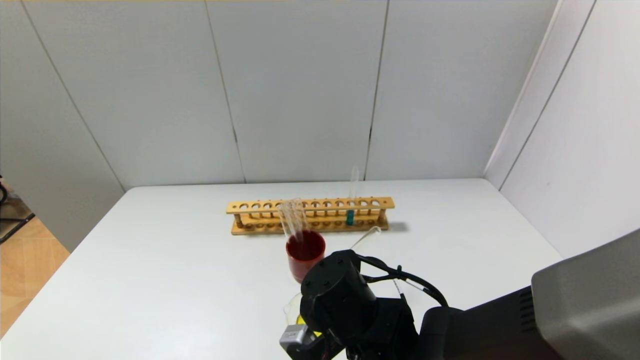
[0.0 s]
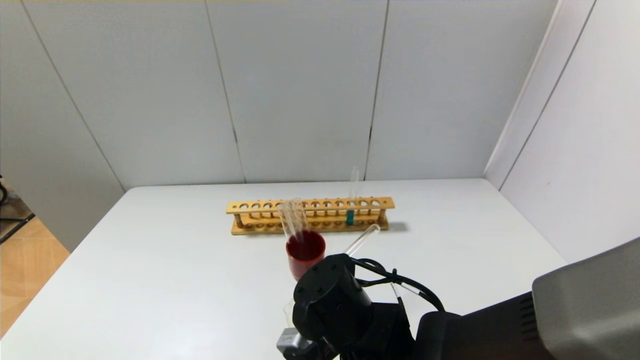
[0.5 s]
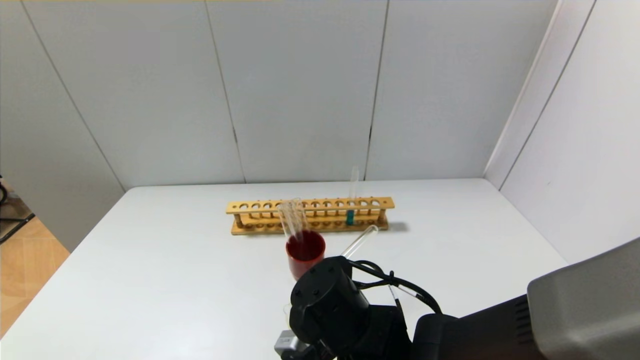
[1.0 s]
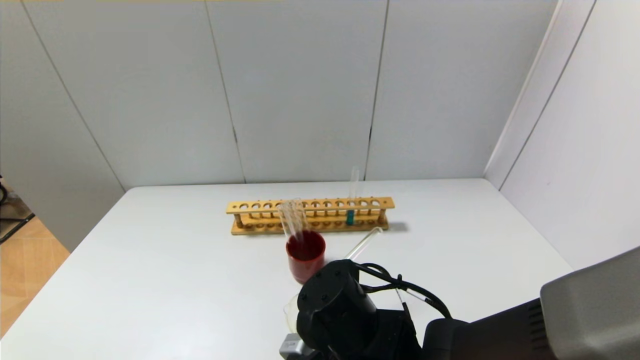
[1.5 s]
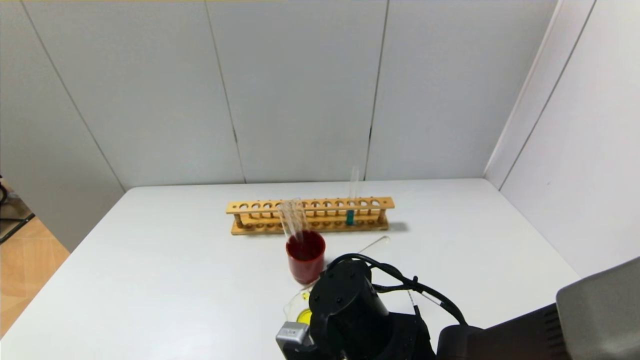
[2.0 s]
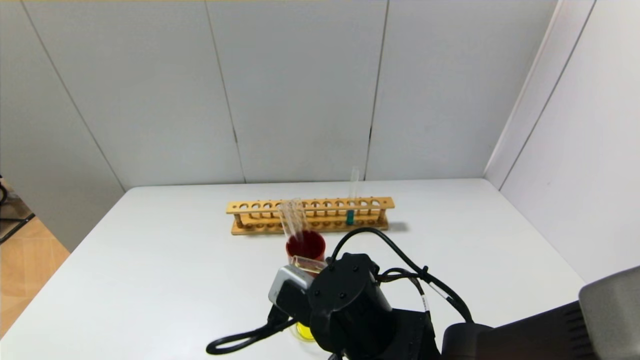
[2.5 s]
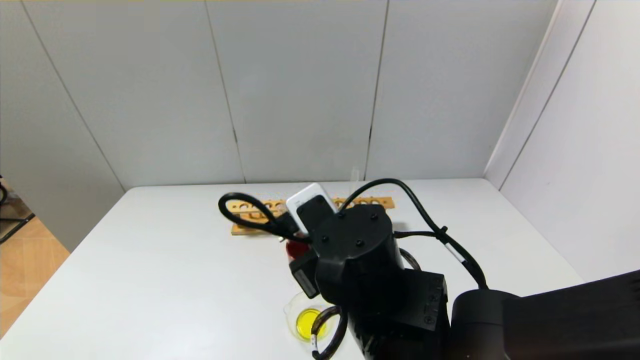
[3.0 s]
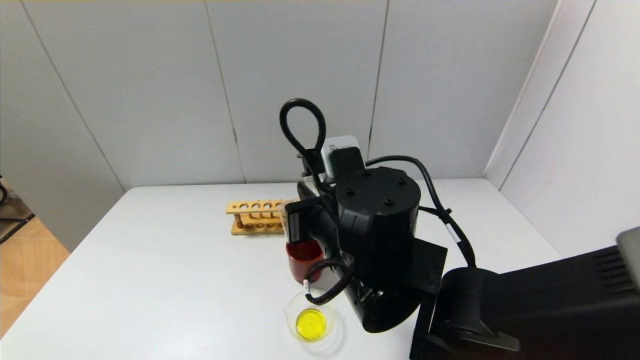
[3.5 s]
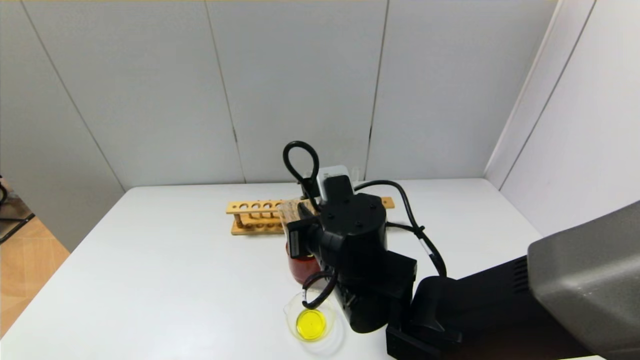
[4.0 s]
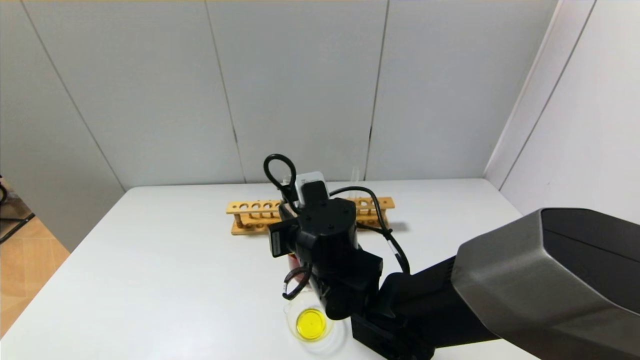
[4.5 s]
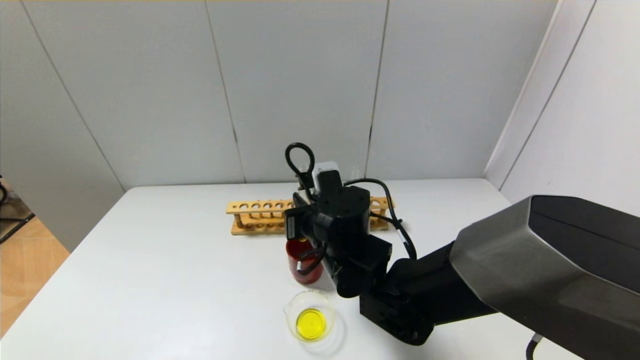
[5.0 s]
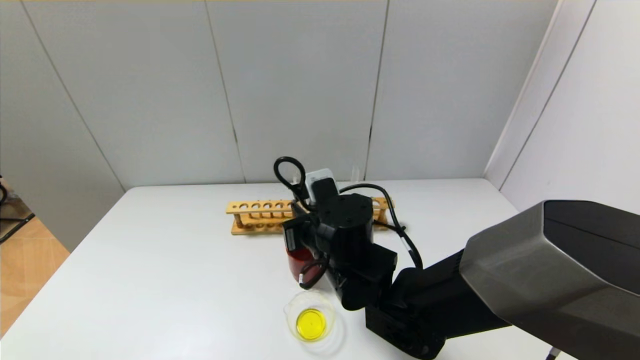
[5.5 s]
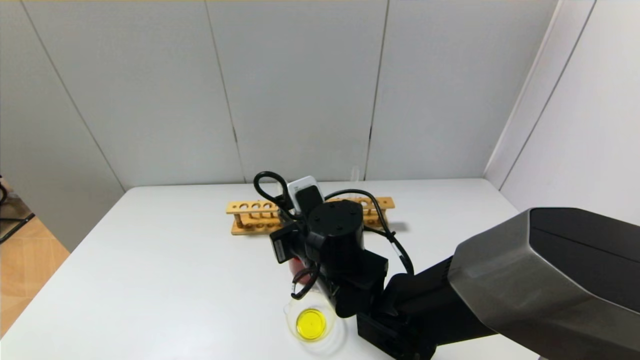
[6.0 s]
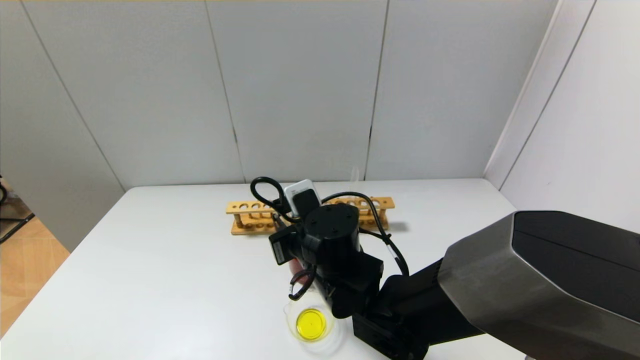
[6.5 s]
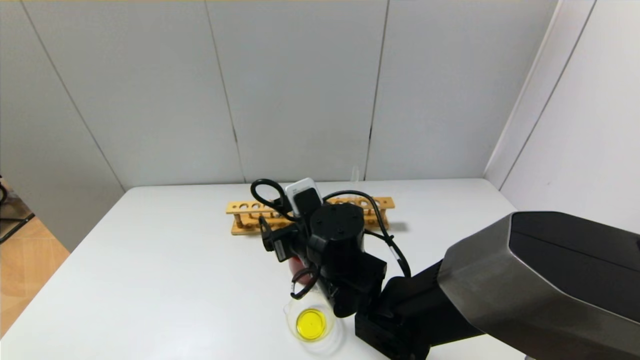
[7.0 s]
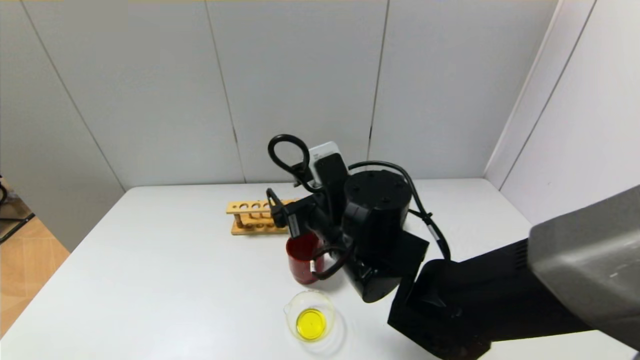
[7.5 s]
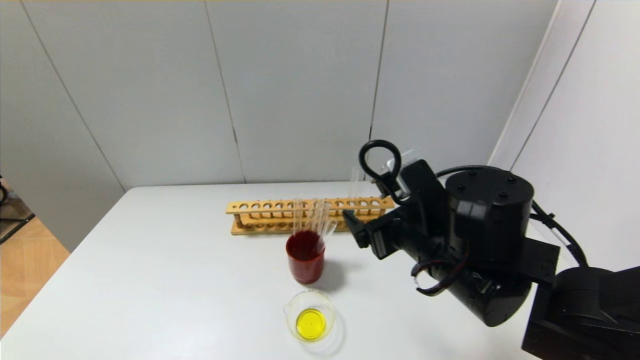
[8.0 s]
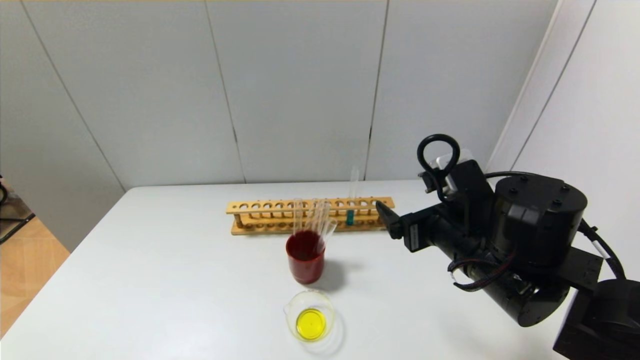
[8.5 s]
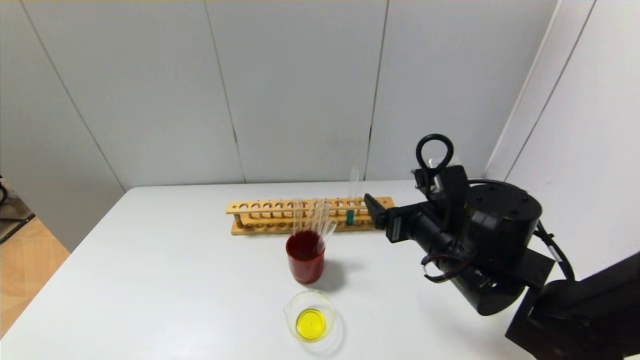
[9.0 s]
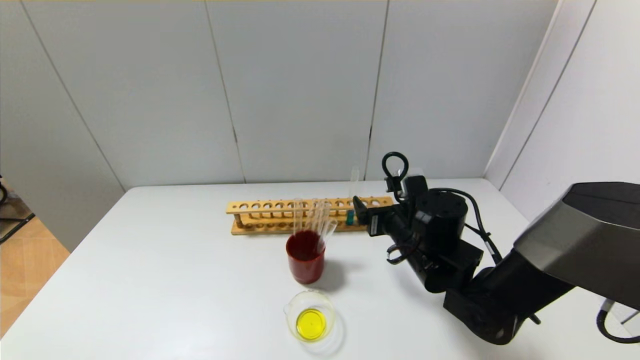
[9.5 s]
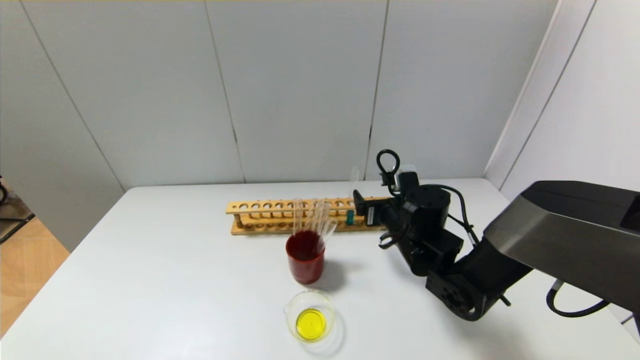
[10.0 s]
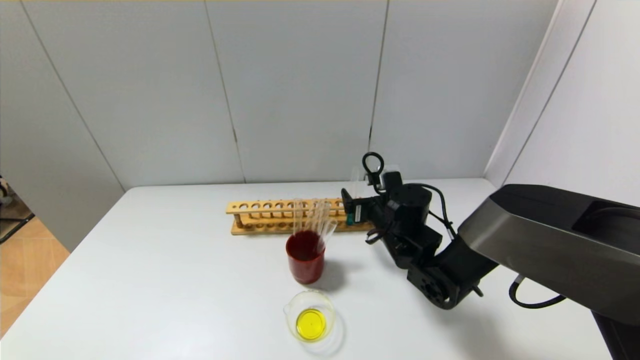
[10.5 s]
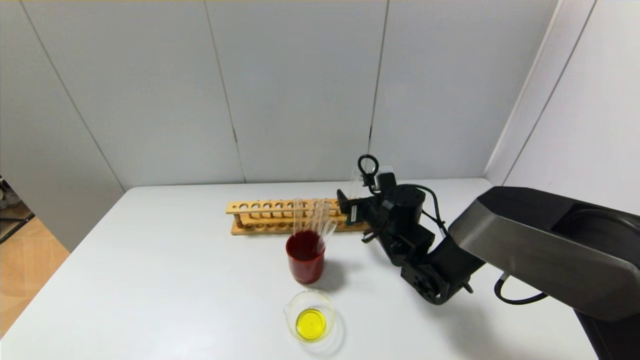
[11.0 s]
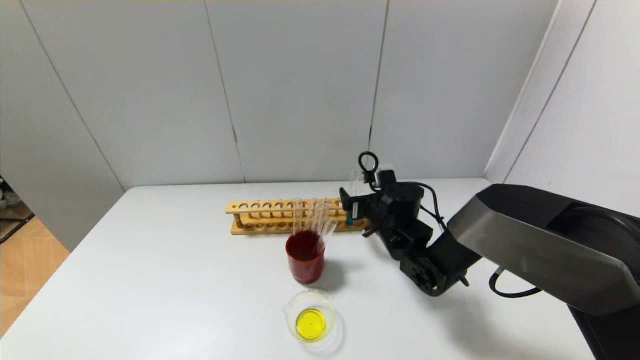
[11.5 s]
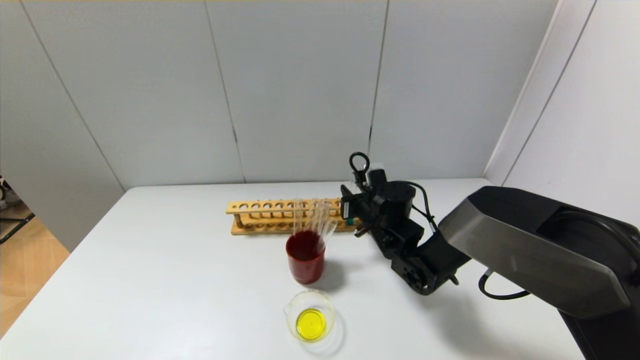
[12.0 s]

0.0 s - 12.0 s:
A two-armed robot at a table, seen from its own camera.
Step, 0.0 s - 2.5 s: Pour the yellow reagent into the graduated cylinder with the right gripper.
Step, 3.0 s - 6.5 s: Place the test tube into the brown cup with the right gripper.
0.0 s - 2.0 s: The grippers make only small movements.
2.0 s - 4.0 s: The right gripper heads forward, covering about 5 cm.
4.0 s - 6.0 s: The grippers move only a little.
6.0 s - 8.0 s: The right gripper goes about 15 cm to the right and upward, and opens its fingers.
8.0 s - 10.0 s: The right gripper goes approximately 15 cm forward and downward.
10.0 s - 12.0 s: The right gripper shifts by some 5 cm, and closes.

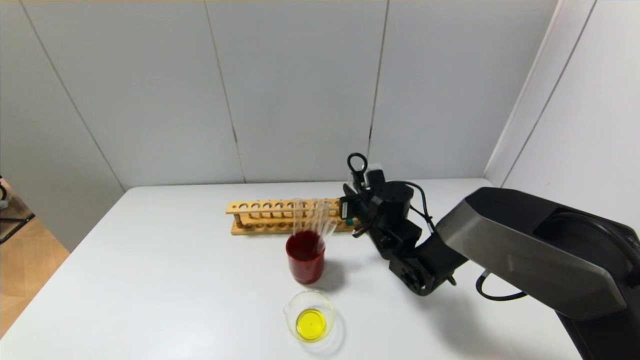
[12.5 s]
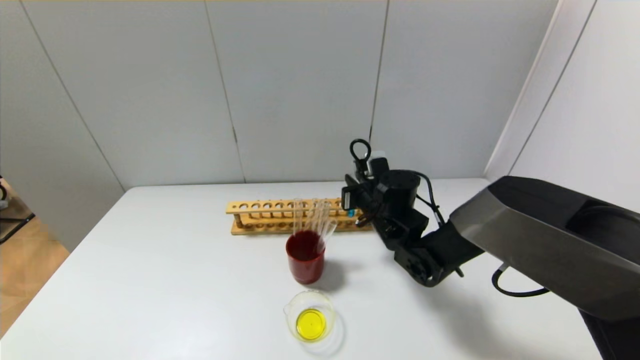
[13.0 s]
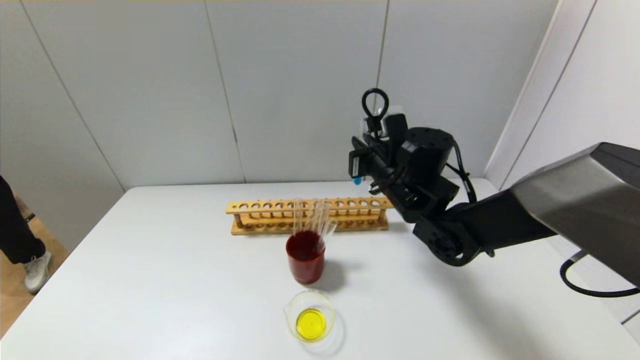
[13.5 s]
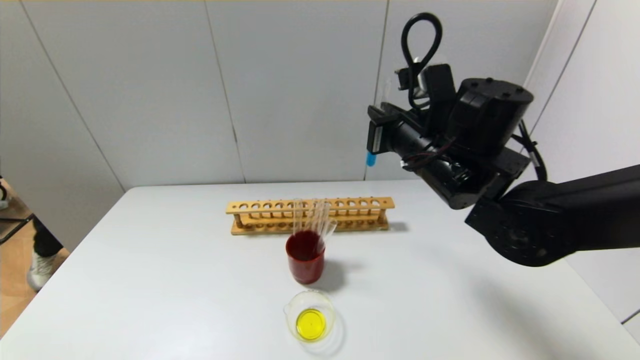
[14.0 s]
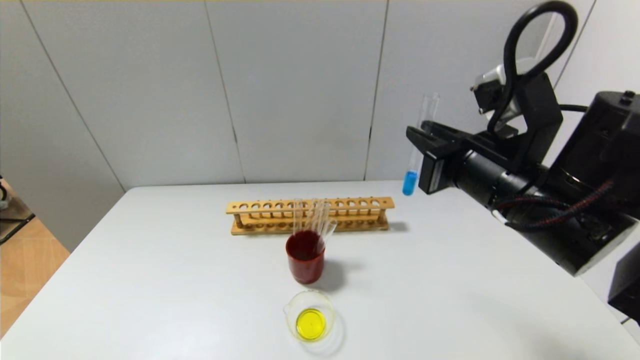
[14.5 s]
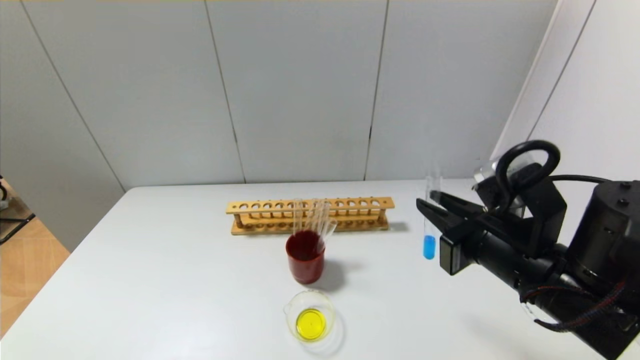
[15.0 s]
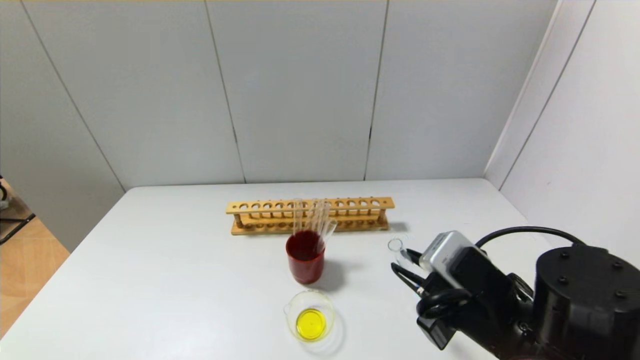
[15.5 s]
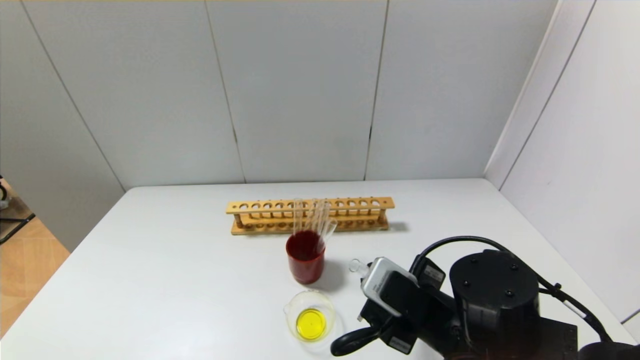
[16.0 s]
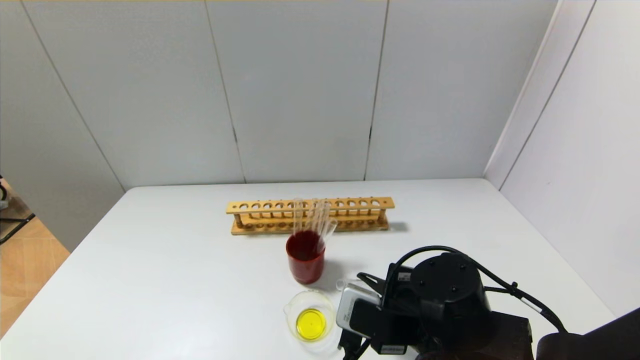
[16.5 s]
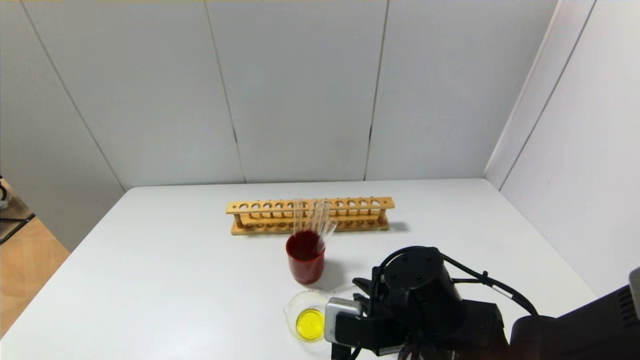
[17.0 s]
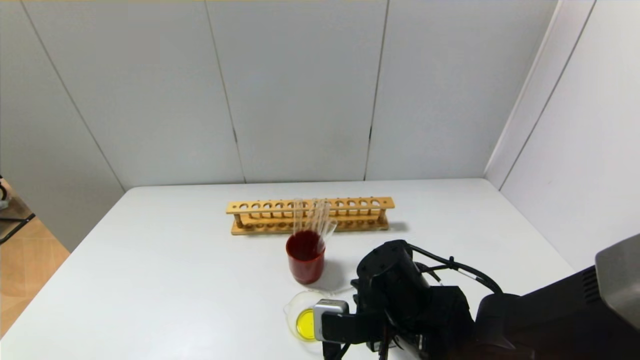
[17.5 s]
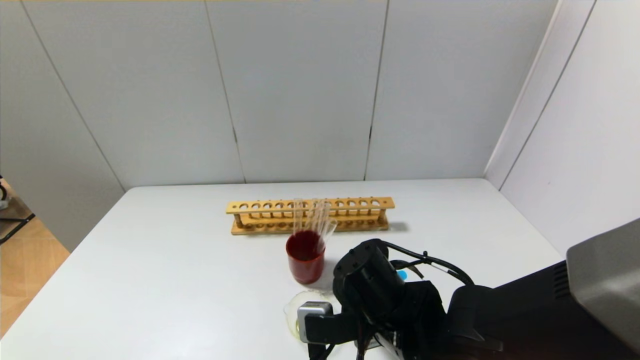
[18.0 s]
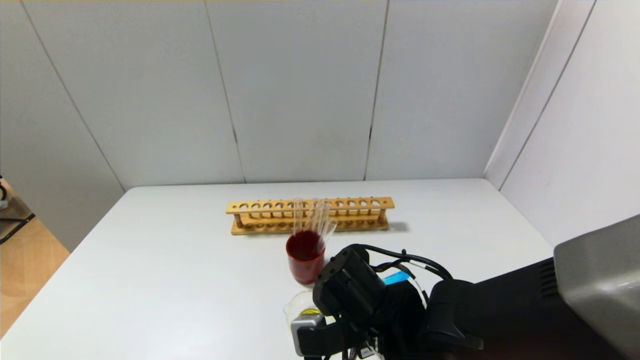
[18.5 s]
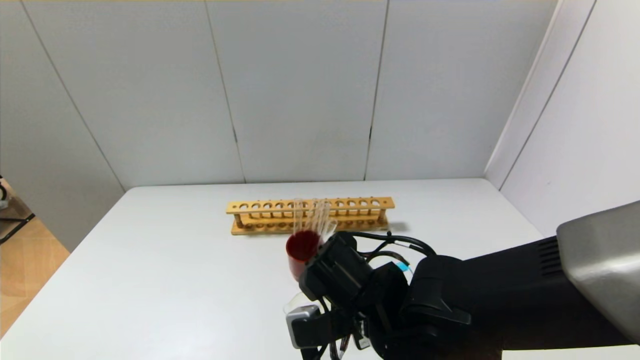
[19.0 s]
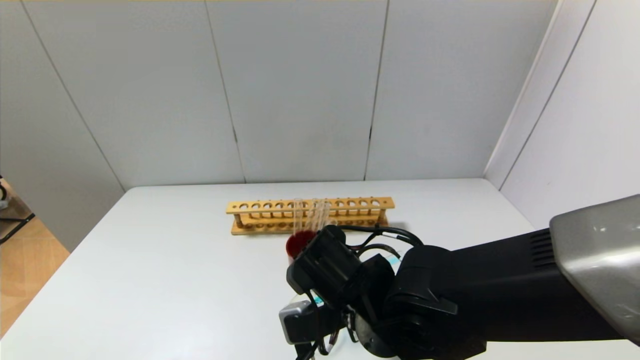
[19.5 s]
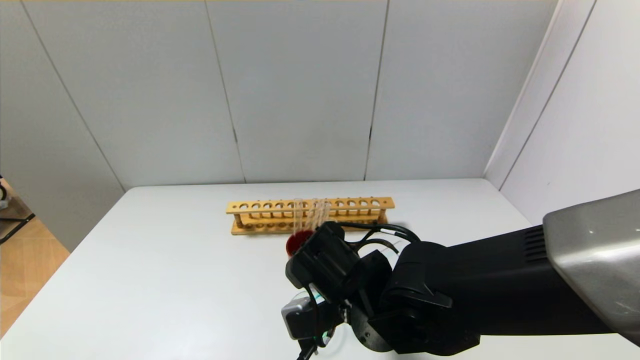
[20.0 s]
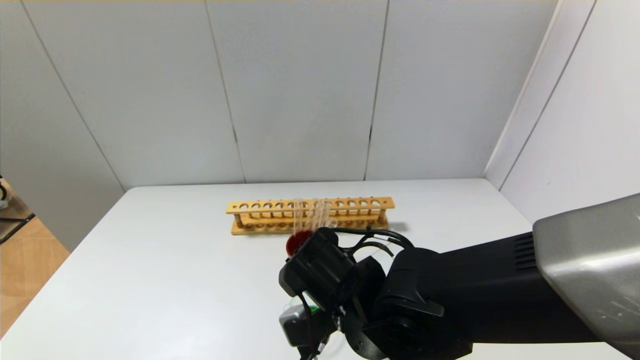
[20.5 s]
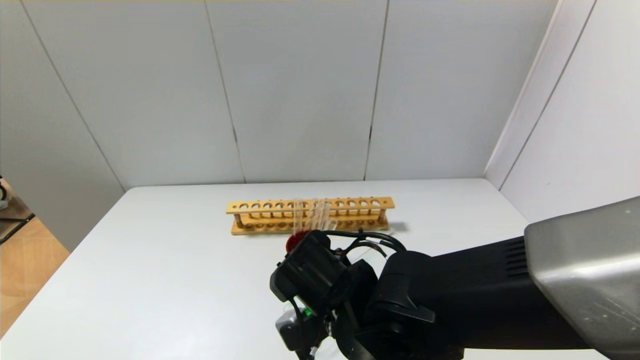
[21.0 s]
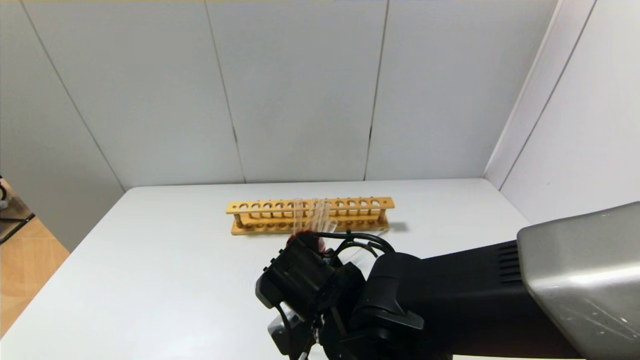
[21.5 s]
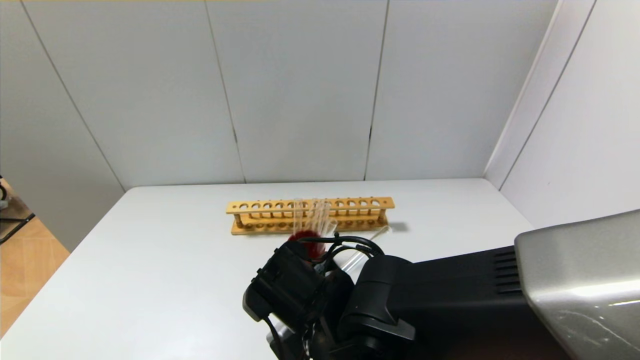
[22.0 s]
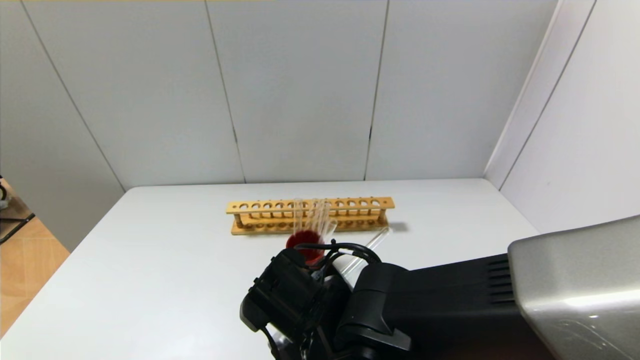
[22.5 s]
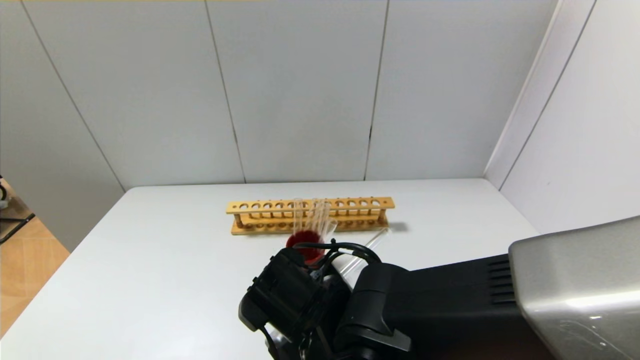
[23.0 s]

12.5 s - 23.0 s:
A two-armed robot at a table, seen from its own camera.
12.5 s - 14.5 s: The right gripper is displaced upward, backward and to the right by approximately 25 cm.
14.5 s - 16.5 s: The right gripper shifts approximately 15 cm downward.
16.5 s - 19.0 s: The right gripper travels to the left by some 5 cm.
19.0 s - 21.0 s: The grippers make only small movements.
21.0 s - 23.0 s: The grippers stay close to where they were, moving slightly.
